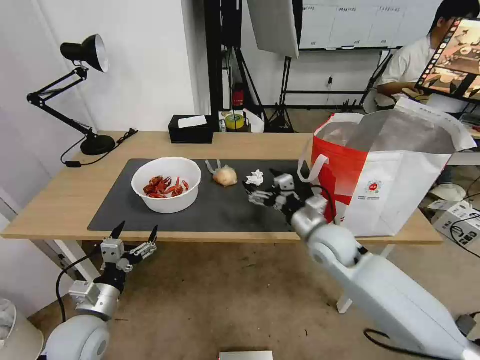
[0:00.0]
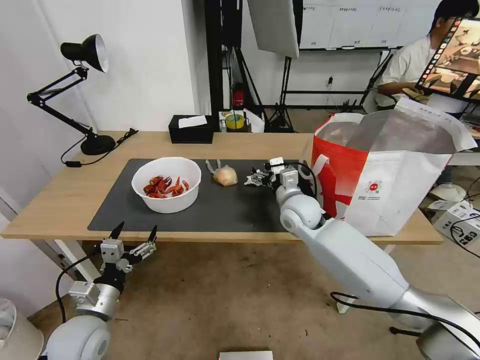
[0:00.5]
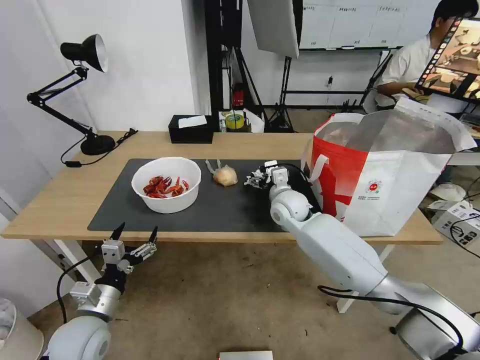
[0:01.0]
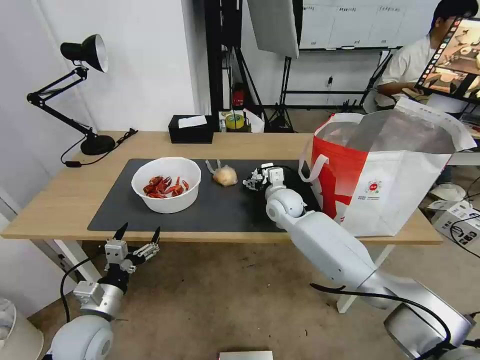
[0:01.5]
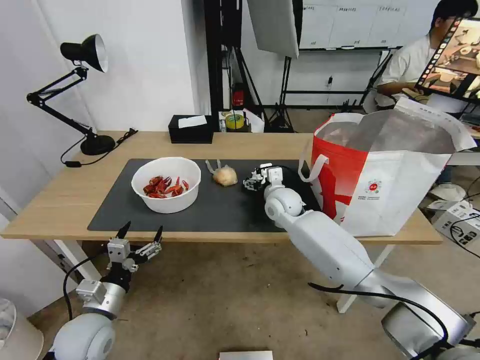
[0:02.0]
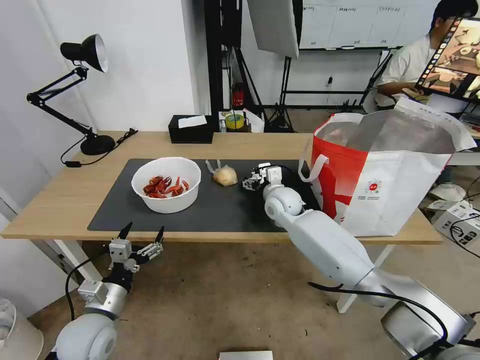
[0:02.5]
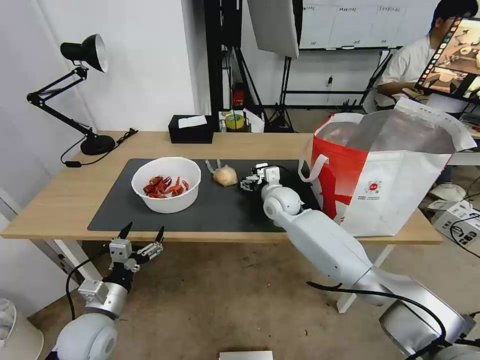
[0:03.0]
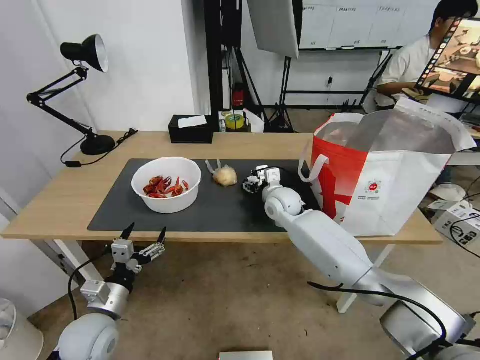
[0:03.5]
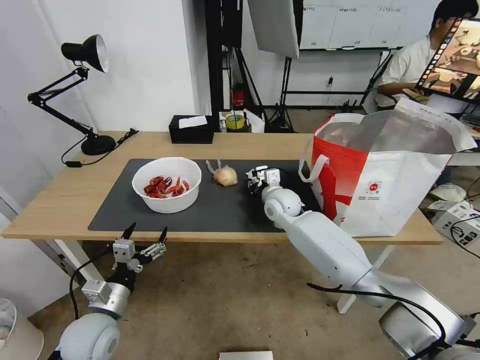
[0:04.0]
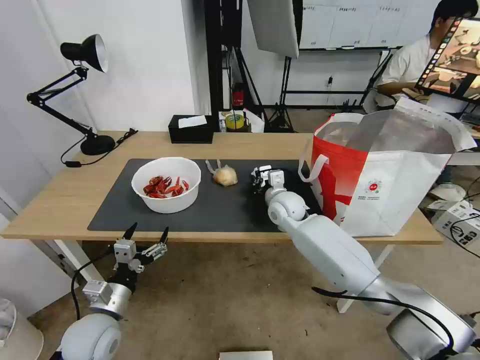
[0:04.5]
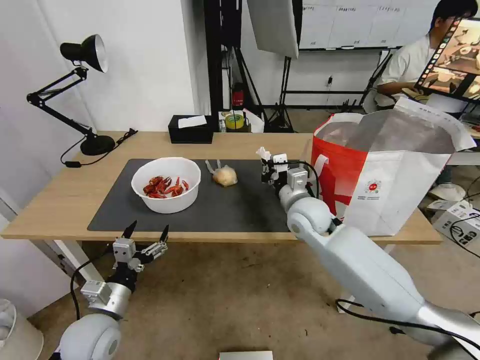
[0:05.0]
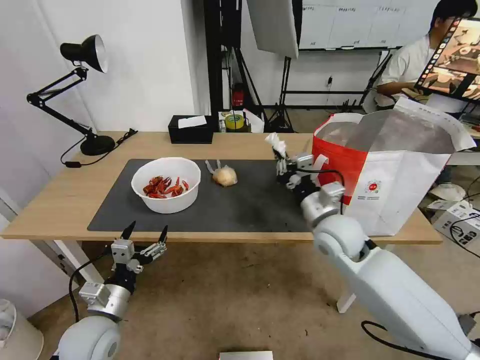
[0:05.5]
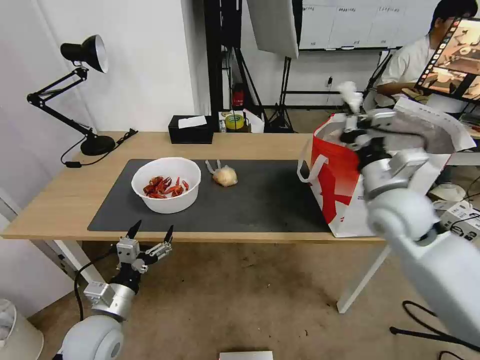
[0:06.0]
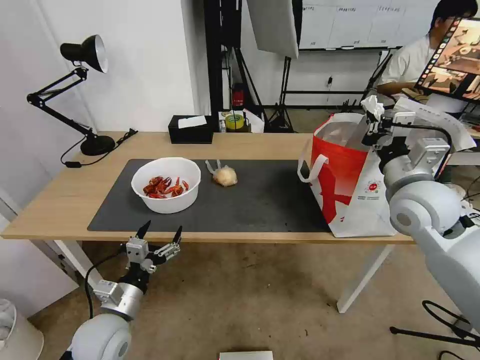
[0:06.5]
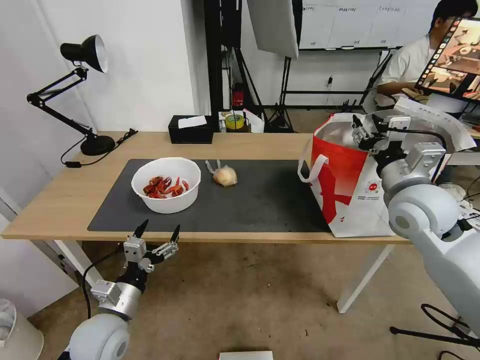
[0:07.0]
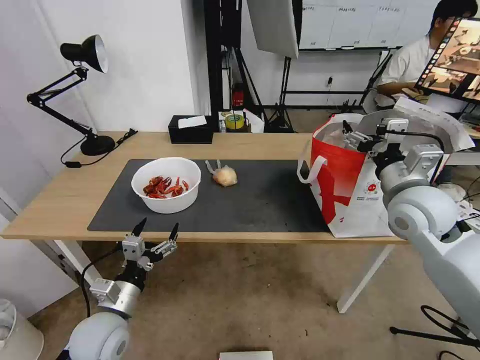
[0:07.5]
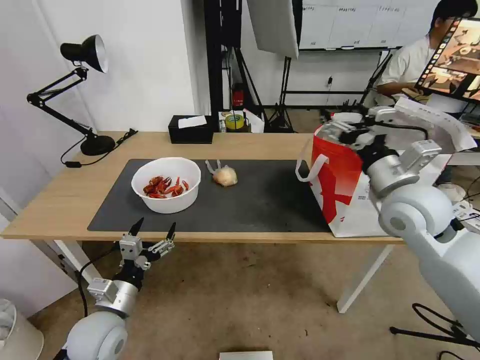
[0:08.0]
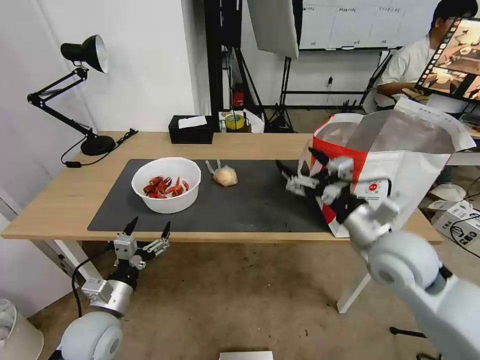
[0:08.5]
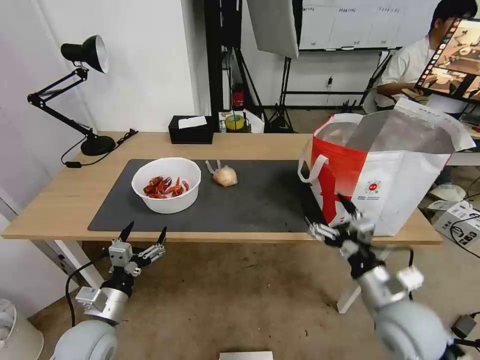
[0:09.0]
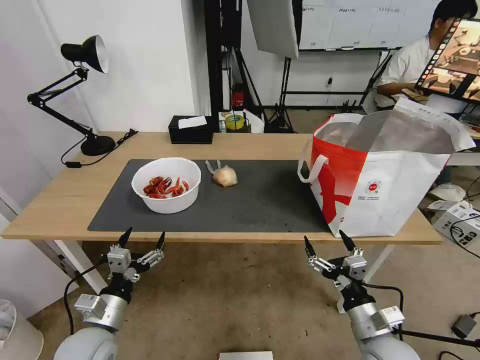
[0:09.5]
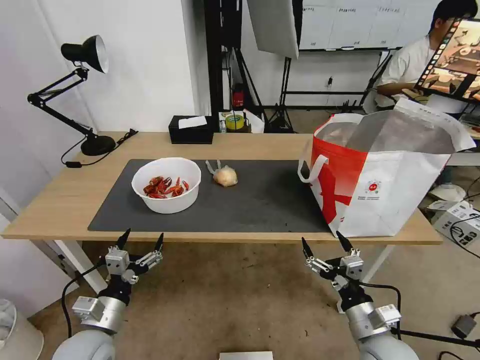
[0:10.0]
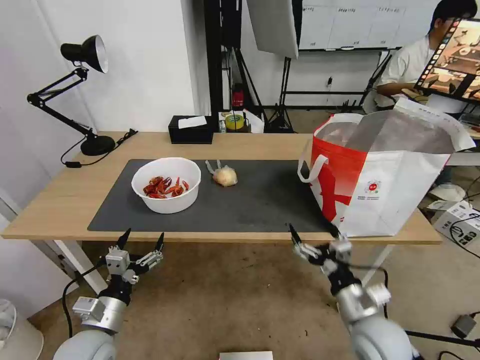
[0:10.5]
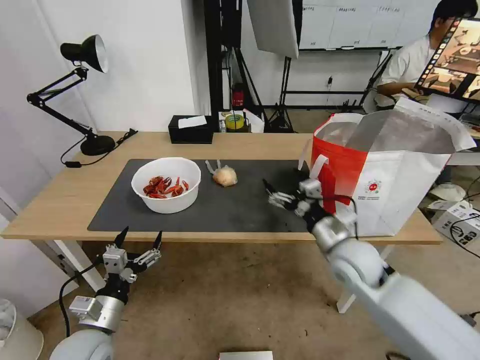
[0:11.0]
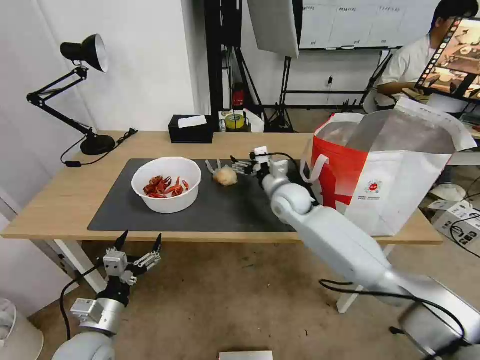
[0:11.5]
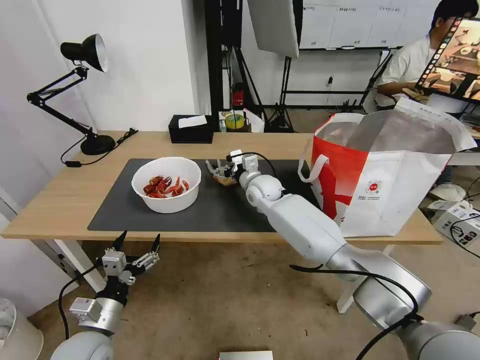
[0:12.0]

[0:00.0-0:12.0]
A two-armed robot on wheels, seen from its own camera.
Task of the whole recording: Pick up the trash from the table and place it into the takeout bag.
0:00.0 to 0:02.0: The right gripper goes roughly 15 cm forward and to the left.
0:02.0 to 0:04.0: The right gripper closes up.
0:04.0 to 0:06.0: The right gripper shifts some 25 cm to the right, backward and upward.
0:06.0 to 0:08.0: The right gripper opens.
0:08.0 to 0:10.0: The right gripper goes some 30 cm downward and backward.
0:10.0 to 0:12.0: The right gripper shifts roughly 40 cm forward and to the left.

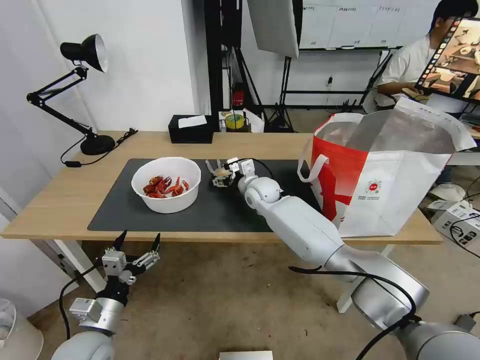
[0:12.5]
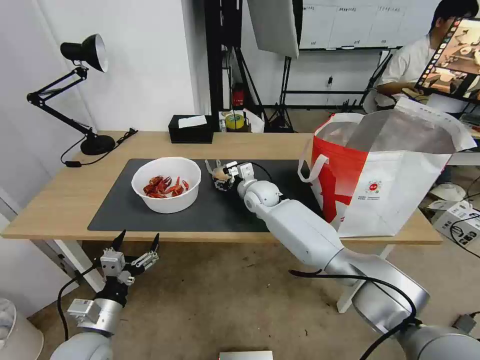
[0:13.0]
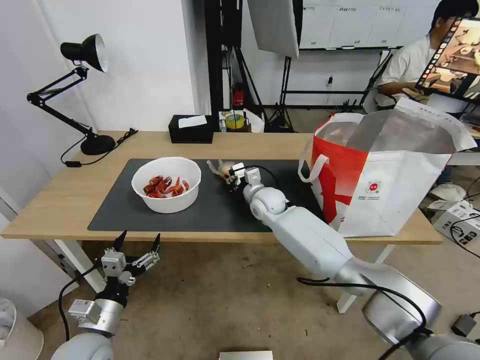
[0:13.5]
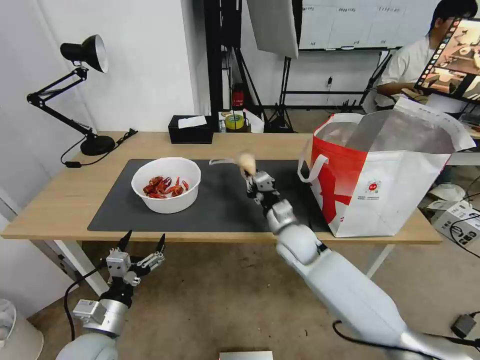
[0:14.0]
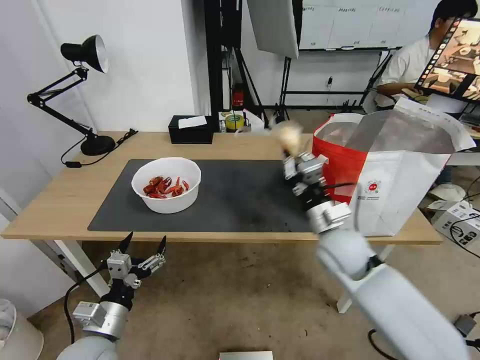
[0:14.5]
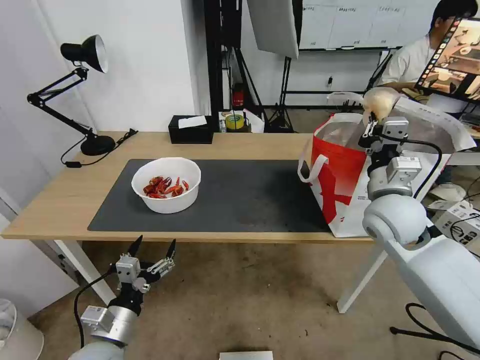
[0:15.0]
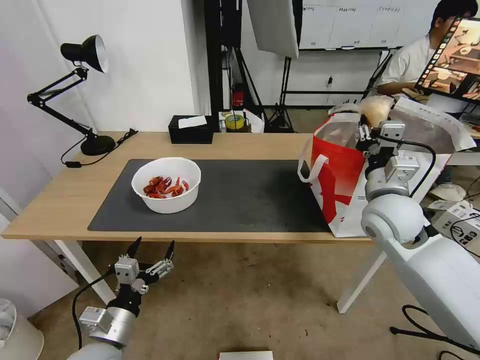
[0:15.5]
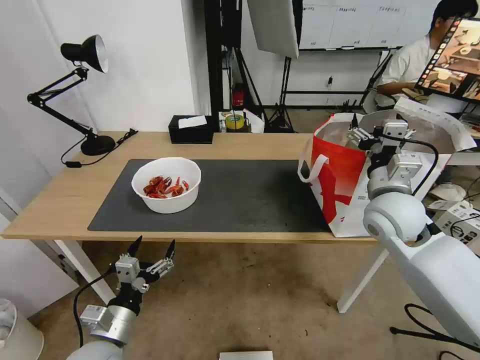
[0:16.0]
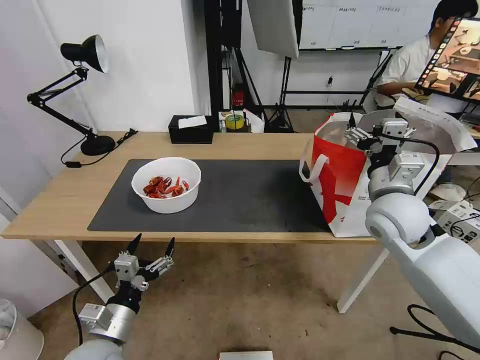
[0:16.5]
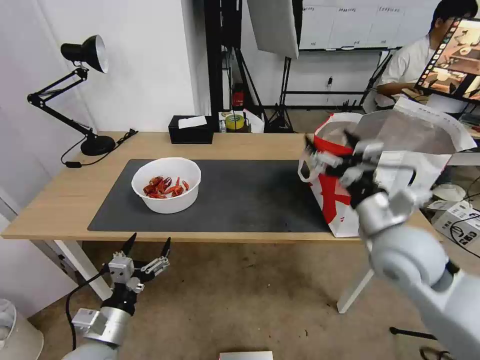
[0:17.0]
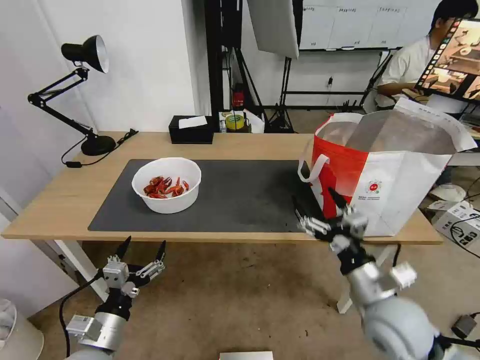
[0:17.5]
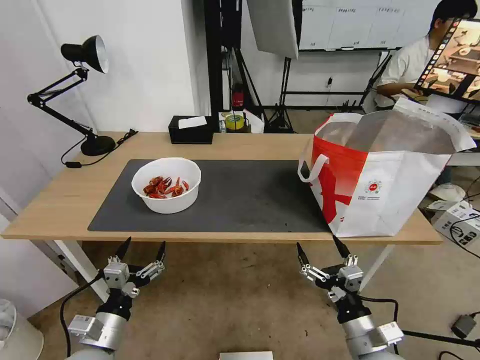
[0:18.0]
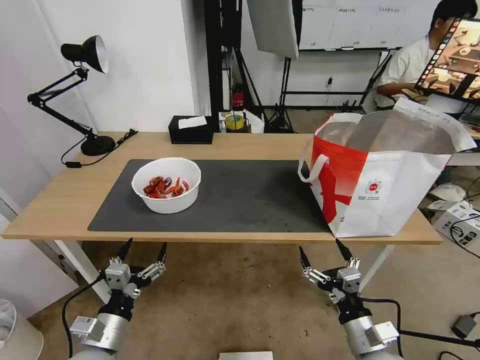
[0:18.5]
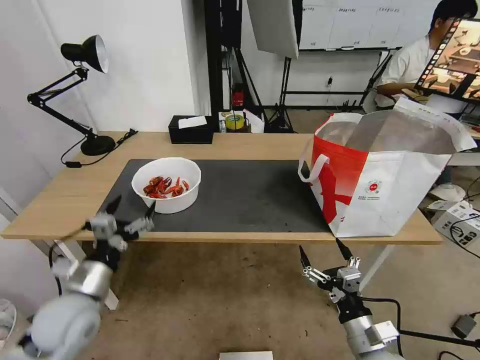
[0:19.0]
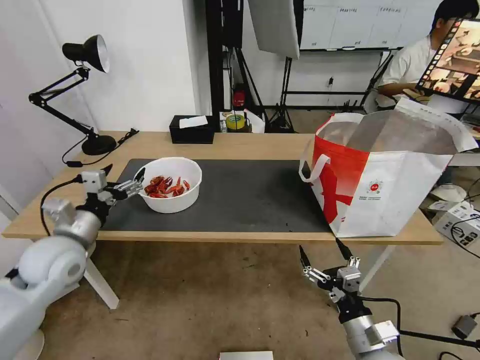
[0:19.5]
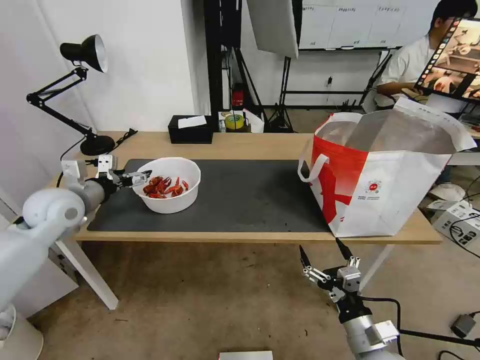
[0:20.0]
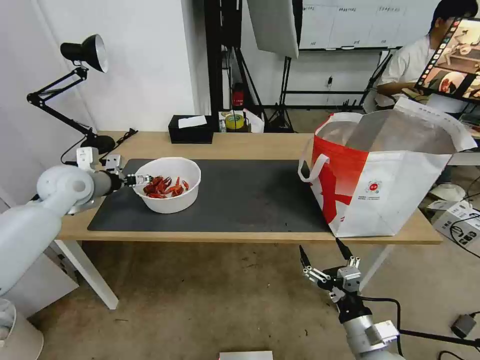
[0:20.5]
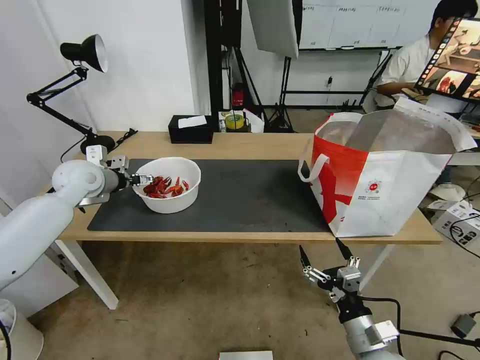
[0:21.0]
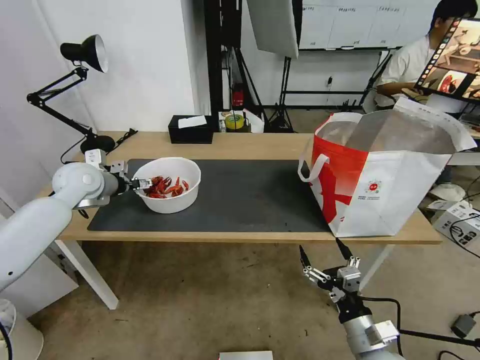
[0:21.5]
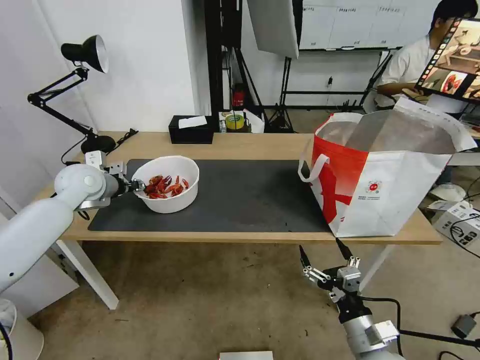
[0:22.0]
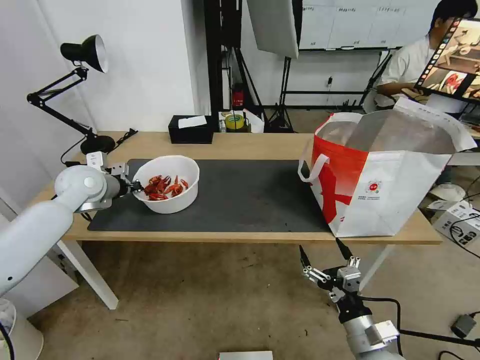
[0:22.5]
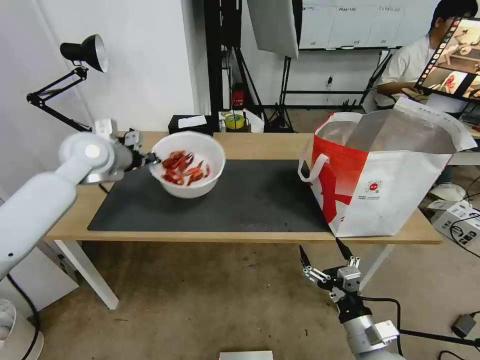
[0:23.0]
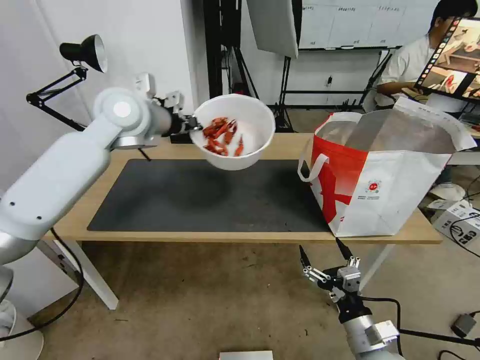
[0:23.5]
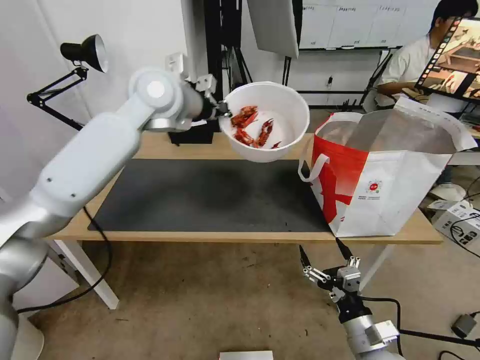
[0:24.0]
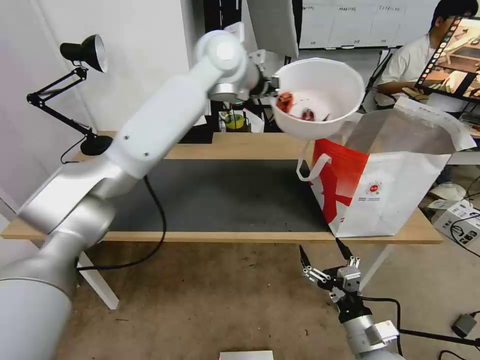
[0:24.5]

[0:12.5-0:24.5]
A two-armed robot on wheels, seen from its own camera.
Task of the whole recording: Pick up the trash from the table and place it into the takeout bag.
0:12.5 to 0:14.5: The right gripper goes roughly 25 cm backward and to the right, and closes its fingers.
0:14.5 to 0:16.5: The right gripper shifts approximately 10 cm upward and to the right, and opens.
0:16.5 to 0:18.5: The right gripper heads backward and downward, covering some 30 cm.
0:18.5 to 0:20.5: The left gripper goes roughly 35 cm forward and upward.
0:20.5 to 0:22.5: The left gripper closes up.
0:22.5 to 0:24.5: The left gripper is displaced to the right and upward by roughly 40 cm.

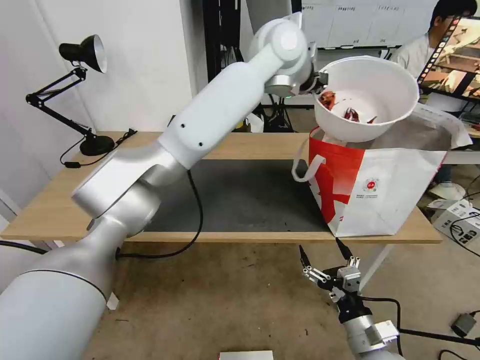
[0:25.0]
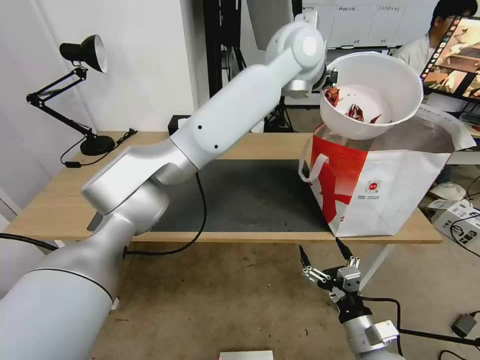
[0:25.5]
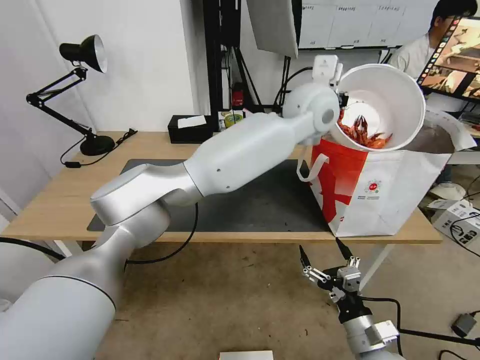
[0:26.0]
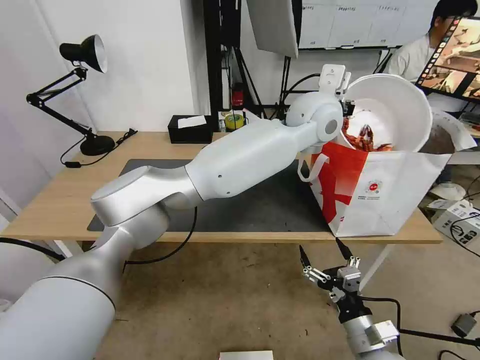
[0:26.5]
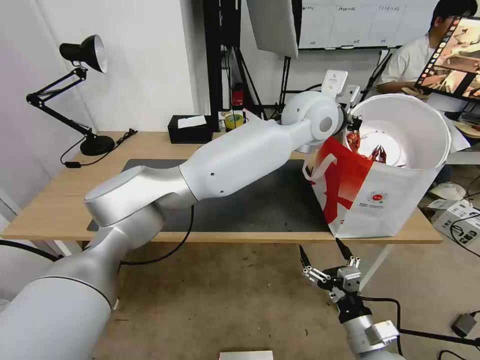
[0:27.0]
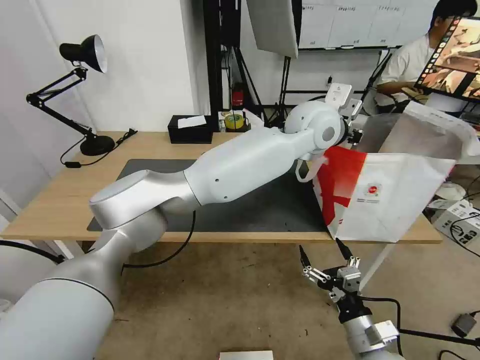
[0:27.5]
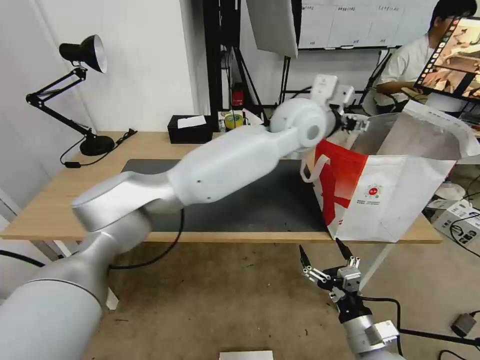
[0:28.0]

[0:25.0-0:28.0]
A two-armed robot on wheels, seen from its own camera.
Task of the whole recording: Pick up the trash from the table and place it into the takeout bag.
0:25.0 to 0:26.5: The left gripper is displaced downward and to the right by roughly 10 cm.
0:26.5 to 0:28.0: The left gripper opens its fingers.
